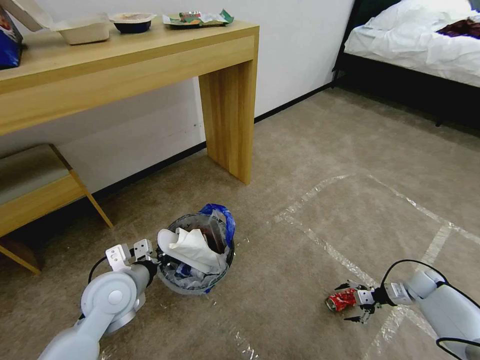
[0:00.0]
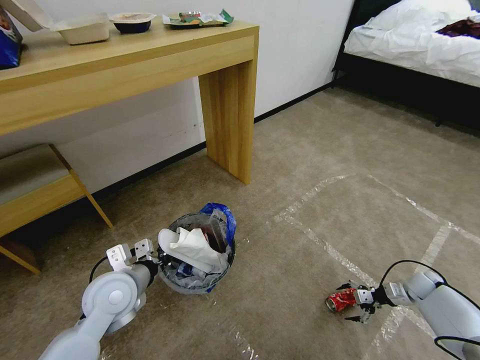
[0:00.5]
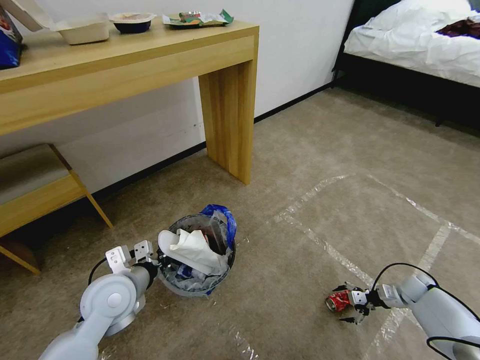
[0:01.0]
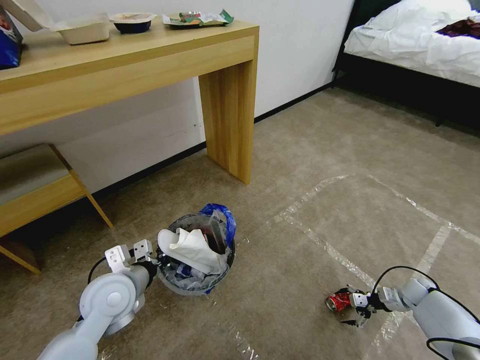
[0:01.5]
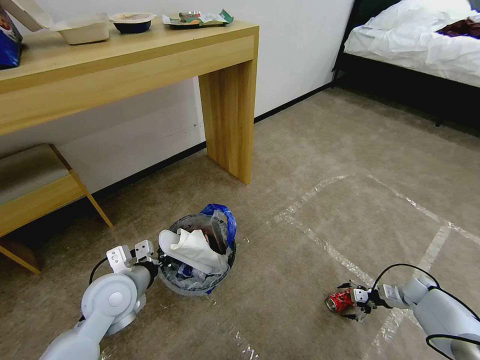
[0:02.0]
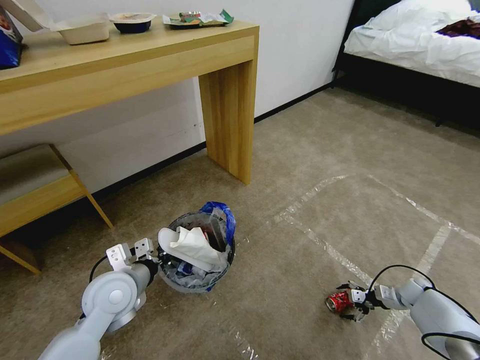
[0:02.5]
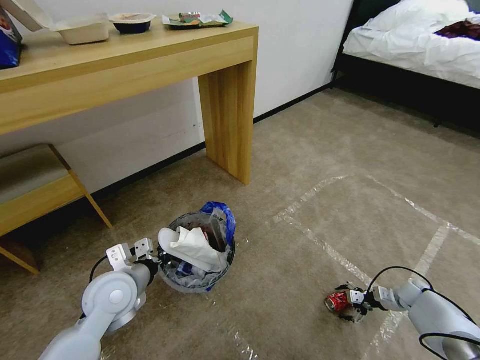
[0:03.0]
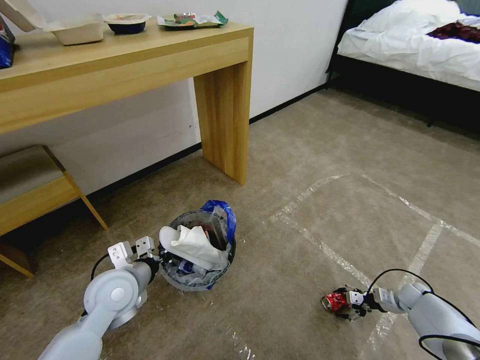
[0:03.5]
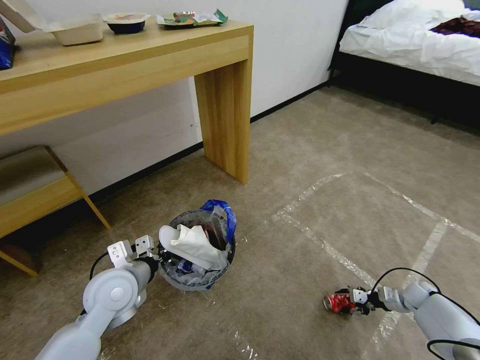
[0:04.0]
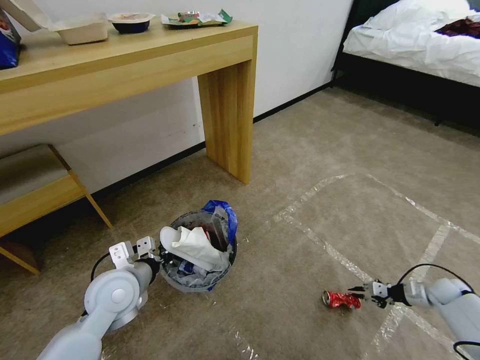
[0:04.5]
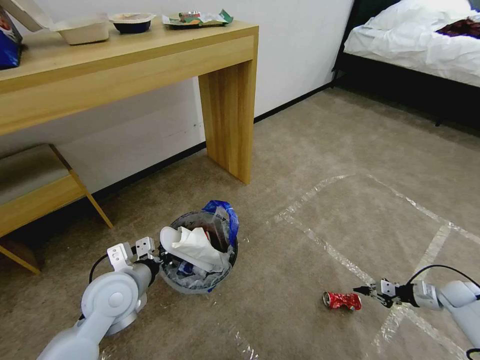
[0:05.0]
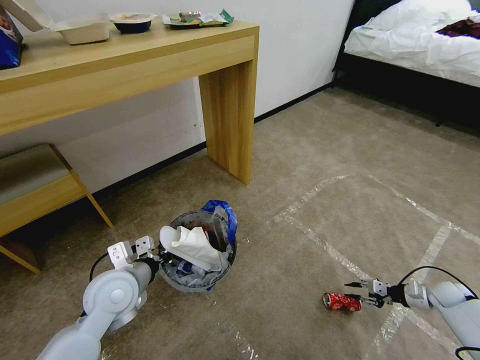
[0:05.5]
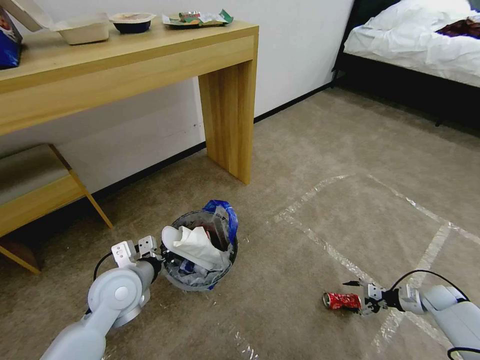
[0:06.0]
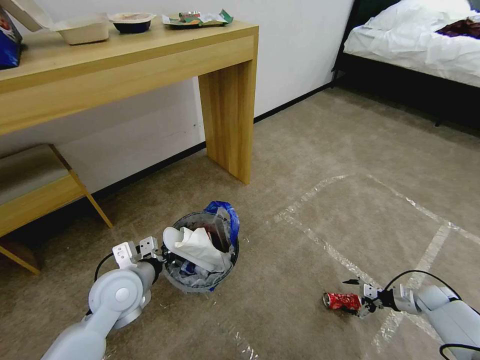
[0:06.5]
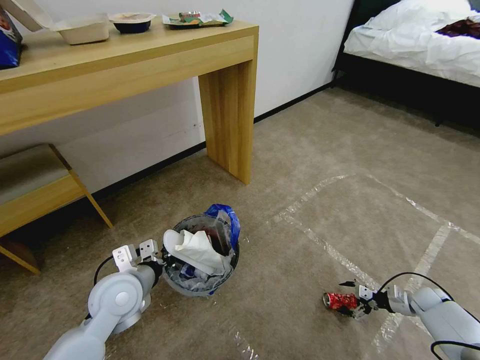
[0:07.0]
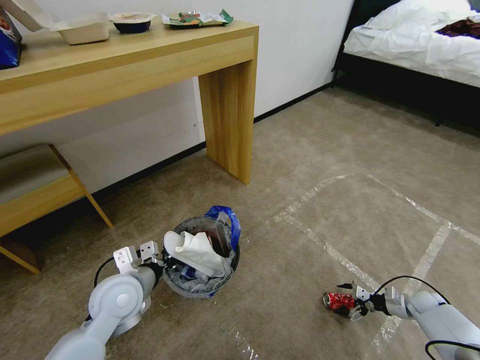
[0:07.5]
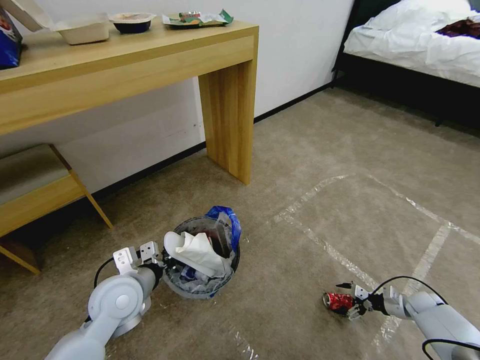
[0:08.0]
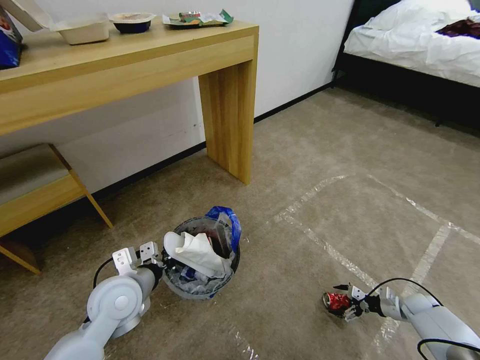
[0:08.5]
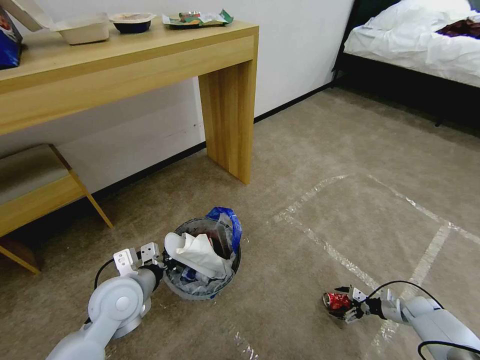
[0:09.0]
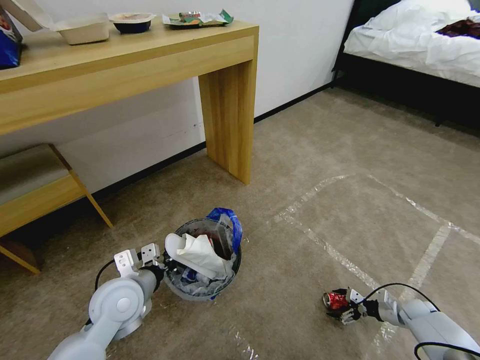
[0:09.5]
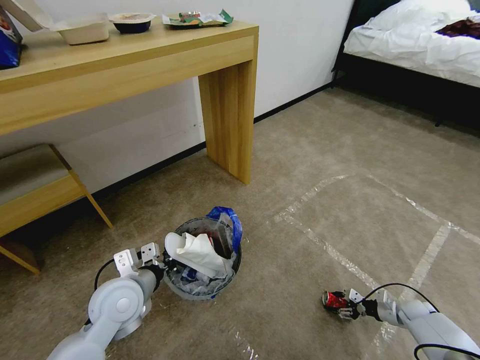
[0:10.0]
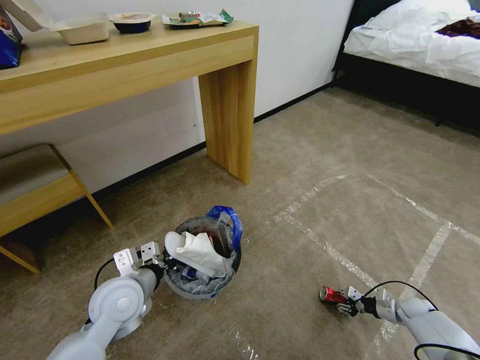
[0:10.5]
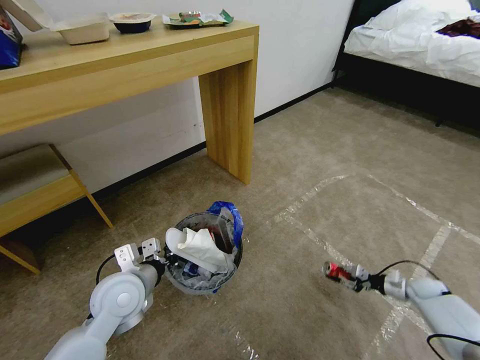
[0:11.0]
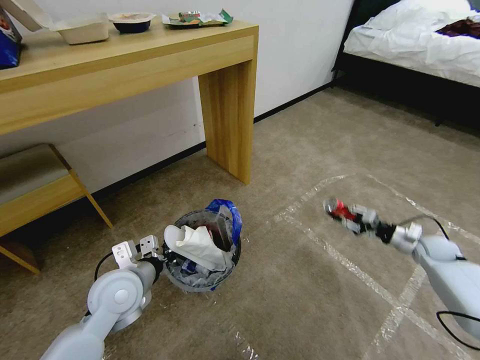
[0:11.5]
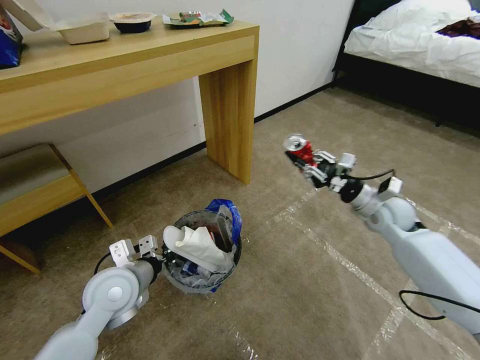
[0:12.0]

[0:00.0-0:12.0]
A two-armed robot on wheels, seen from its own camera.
Task of the whole recording: Pick up the trash bin and place the garbage on the floor into it.
0:00.0 to 0:02.0: The grippers move only a little.
0:02.0 to 0:04.0: The right gripper closes up.
0:04.0 to 0:06.0: The right gripper closes, then opens again.
0:06.0 to 0:08.0: The right gripper moves about 5 cm.
0:08.0 to 0:10.0: The right gripper closes.
0:10.0 to 0:12.0: The right gripper moves upward, to the left and forward, roughly 40 cm.

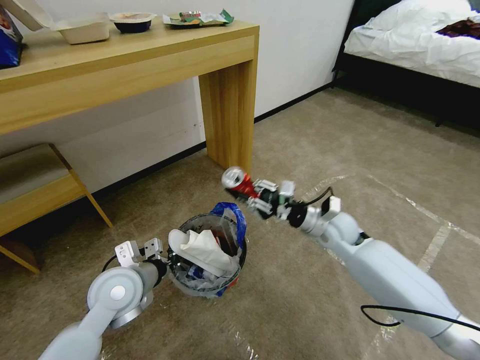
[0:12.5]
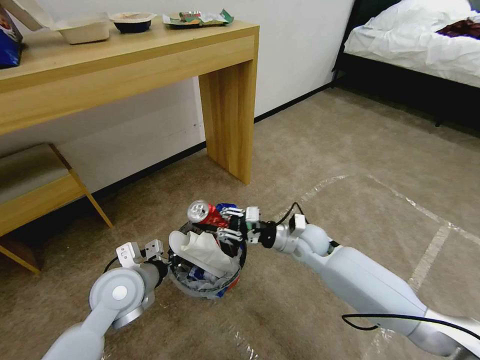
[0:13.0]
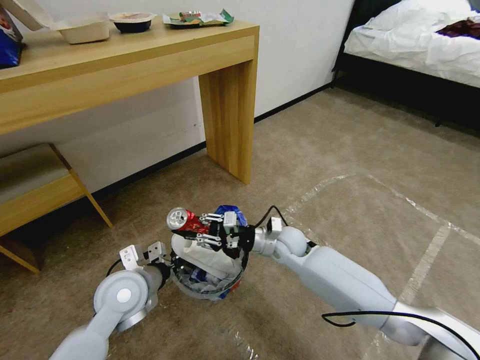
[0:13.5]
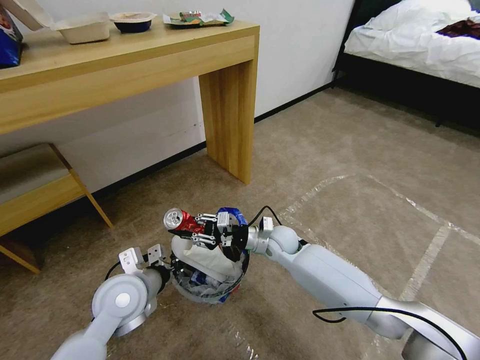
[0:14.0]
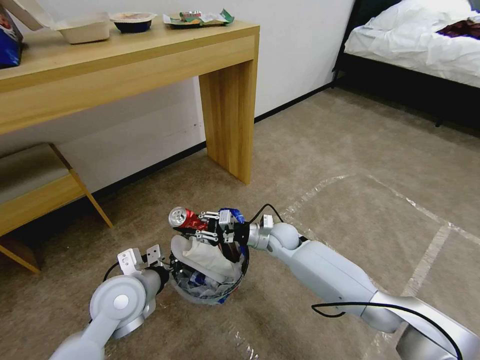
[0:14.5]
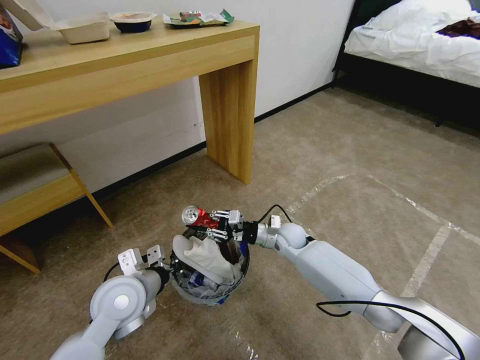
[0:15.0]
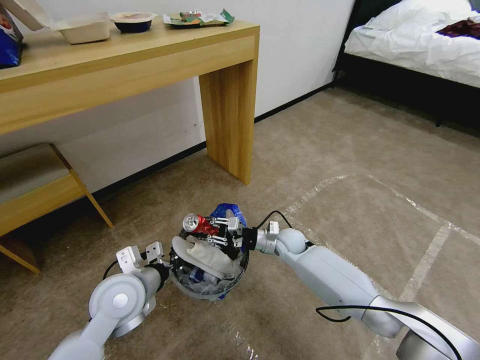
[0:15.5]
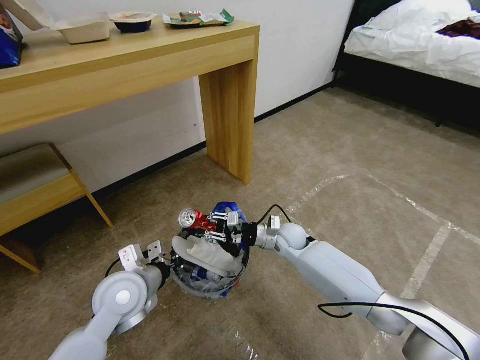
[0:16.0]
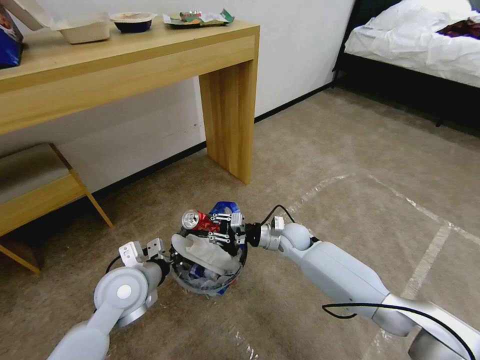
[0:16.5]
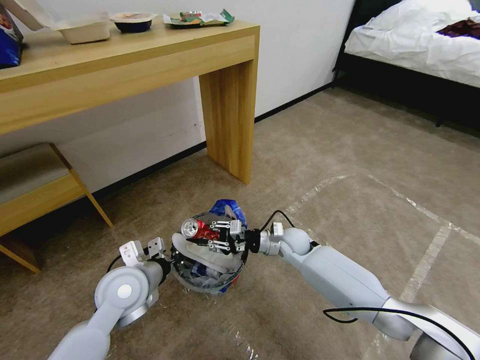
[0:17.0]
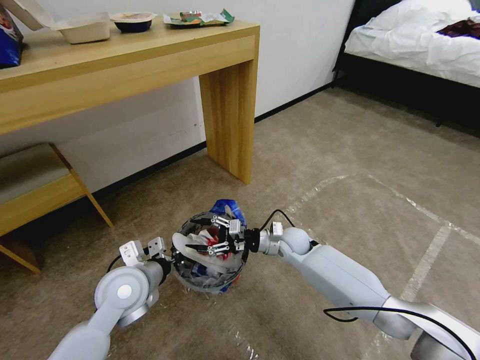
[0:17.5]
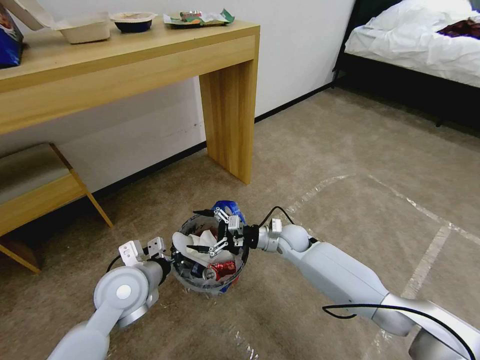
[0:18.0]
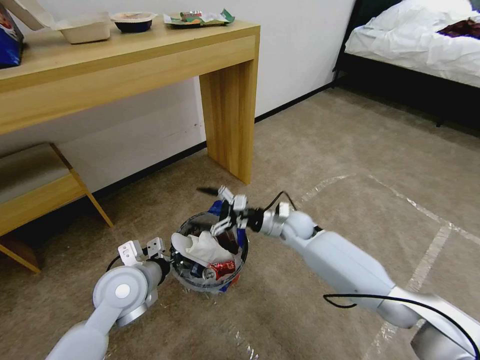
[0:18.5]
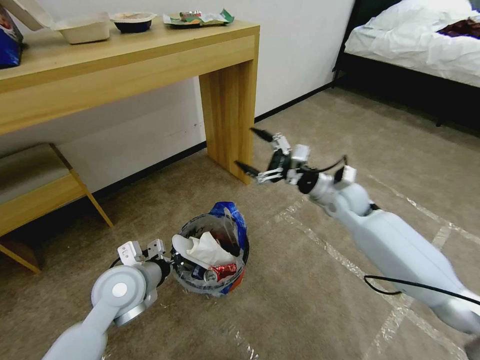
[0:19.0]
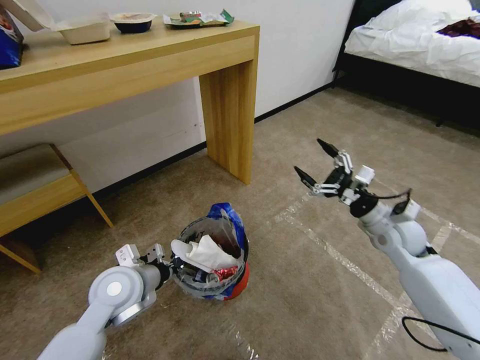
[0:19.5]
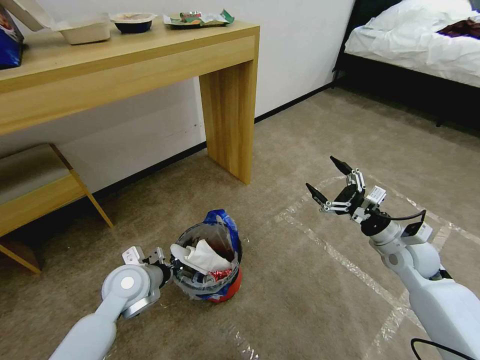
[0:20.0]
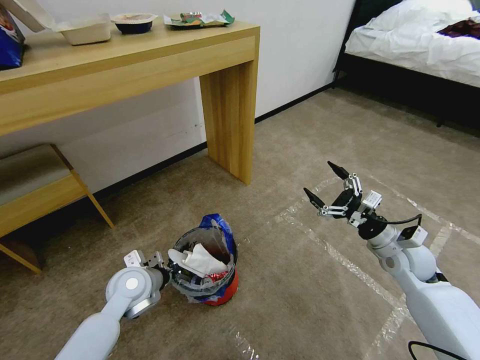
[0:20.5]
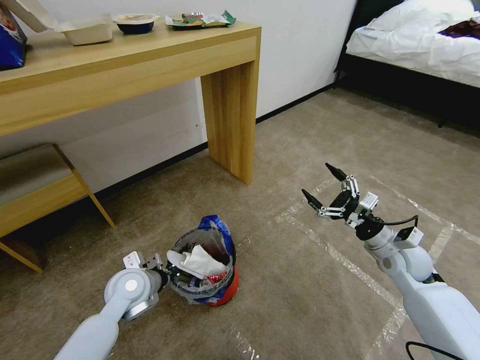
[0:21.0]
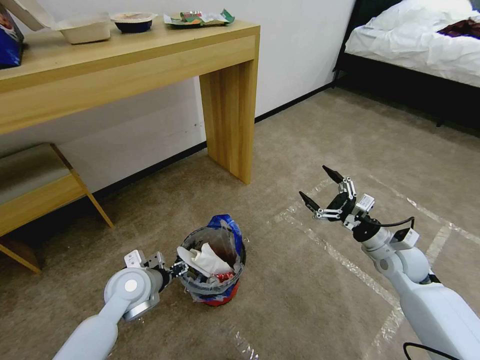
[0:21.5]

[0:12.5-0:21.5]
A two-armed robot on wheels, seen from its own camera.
Task of the whole recording: Pick up the trash bin and place the garbage on the floor into it.
0:12.5 to 0:14.5: The right gripper is displaced to the left and downward by approximately 15 cm.
0:14.5 to 0:17.0: The grippers stay close to where they were, moving slightly.
0:17.0 to 0:19.5: The right gripper shifts some 25 cm to the right and upward, and opens its fingers.
0:19.5 to 0:21.5: Both grippers move downward, some 5 cm. The left gripper opens its fingers.

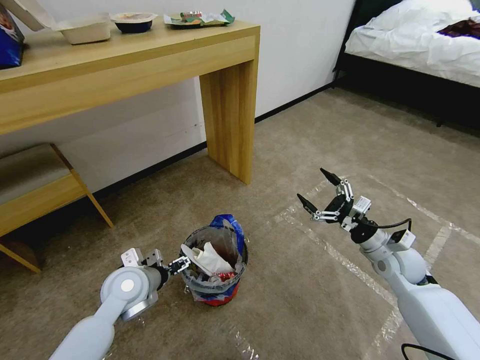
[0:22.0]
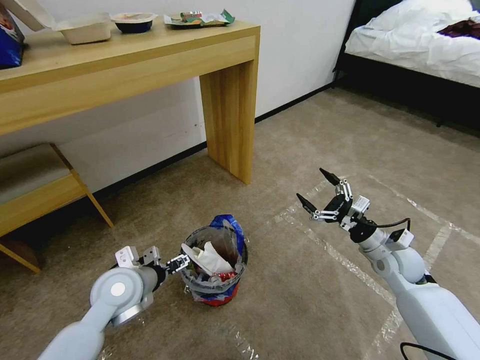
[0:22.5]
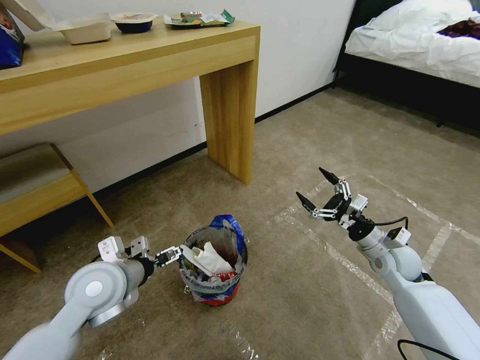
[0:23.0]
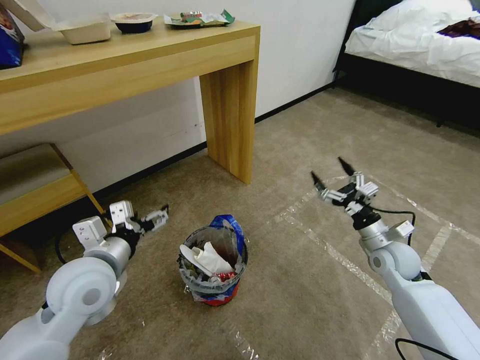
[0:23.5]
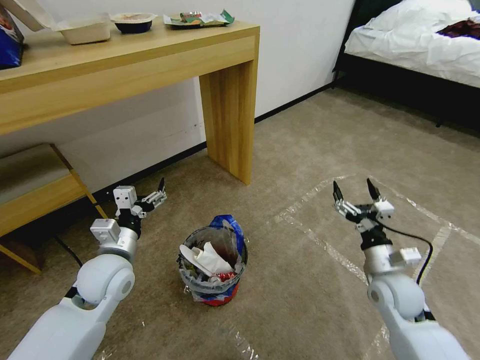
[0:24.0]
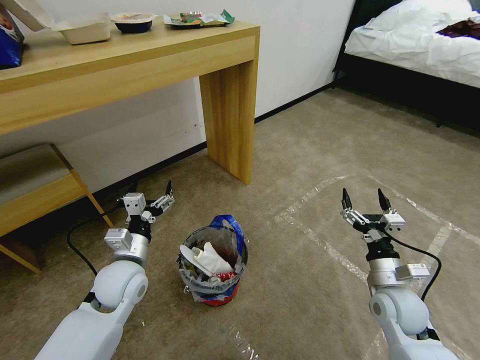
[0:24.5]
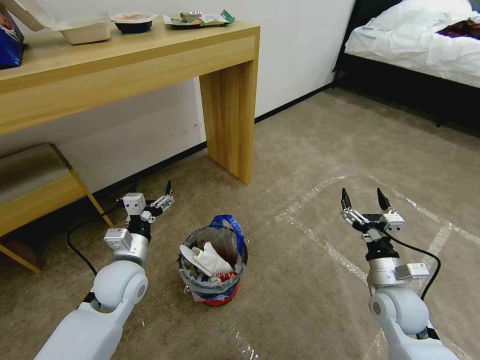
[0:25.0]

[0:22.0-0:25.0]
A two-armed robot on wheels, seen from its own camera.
Task of the whole recording: Pick up the trash bin and place the garbage on the floor into it.
0:22.0 to 0:23.5: The left gripper goes roughly 10 cm upward.
0:23.5 to 0:25.0: The left gripper heads downward, covering approximately 10 cm; the right gripper heads backward, covering approximately 10 cm.

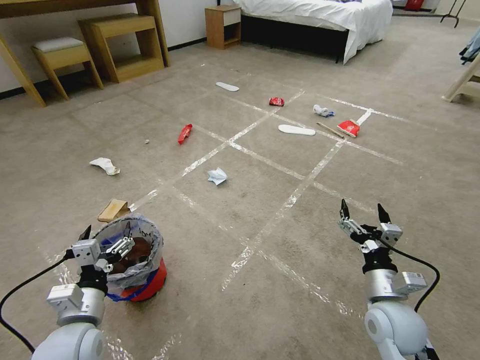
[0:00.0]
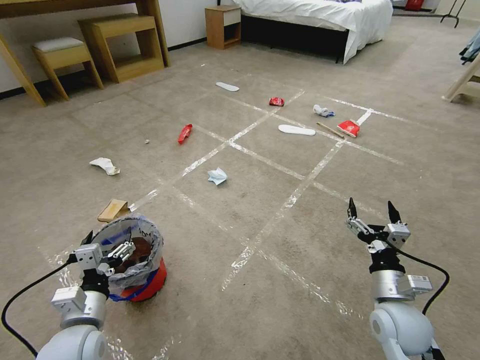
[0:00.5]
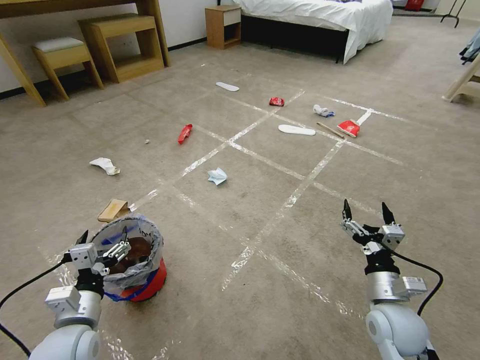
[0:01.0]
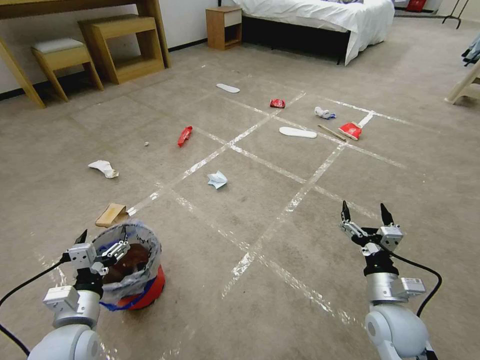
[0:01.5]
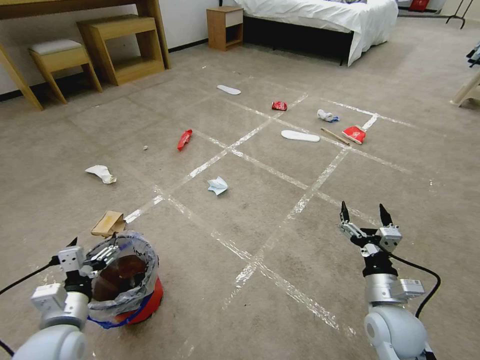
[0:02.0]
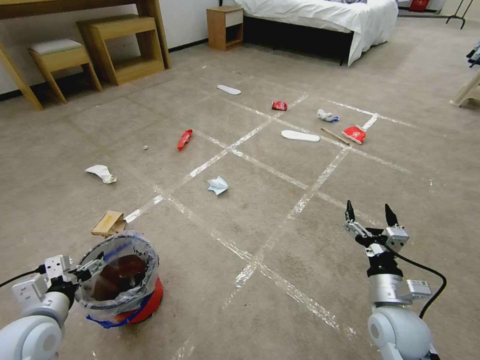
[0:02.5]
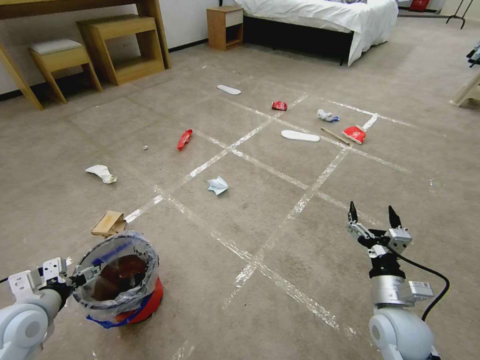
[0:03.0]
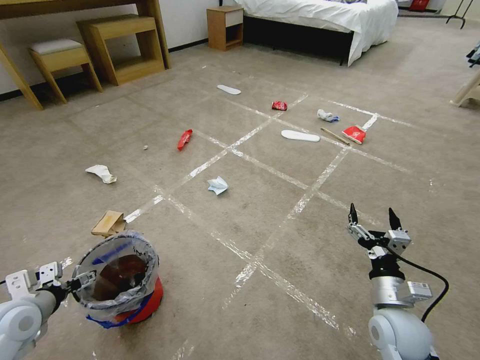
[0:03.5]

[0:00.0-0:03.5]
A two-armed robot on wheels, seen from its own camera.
Task of the whole recording: Pick up the trash bin and place the garbage on the floor into it.
0:02.0 to 0:03.5: The left gripper heads to the left, covering roughly 10 cm.
